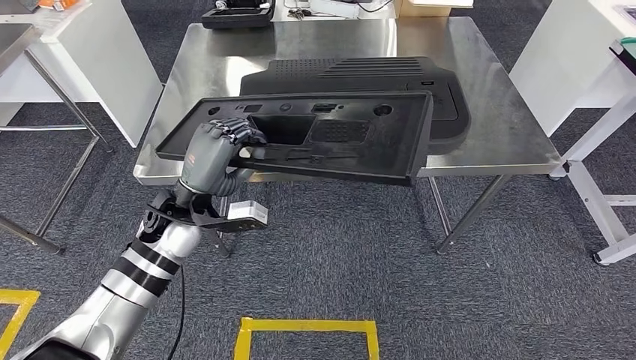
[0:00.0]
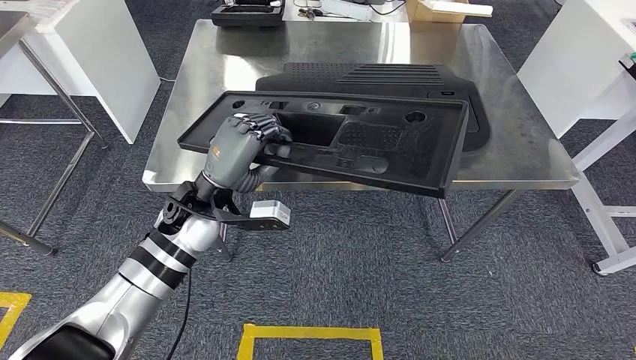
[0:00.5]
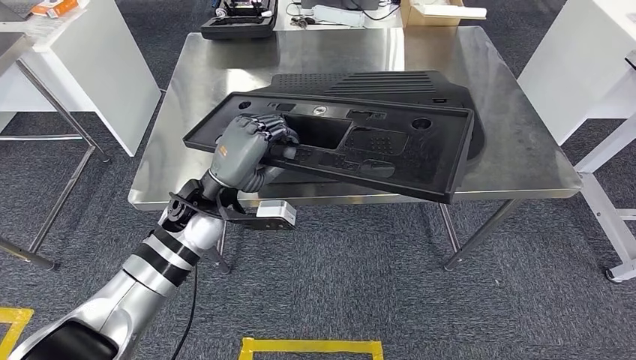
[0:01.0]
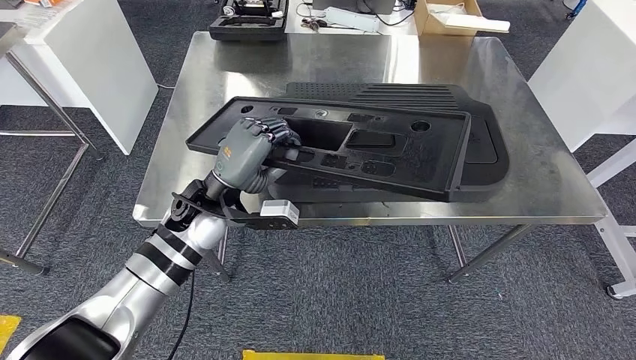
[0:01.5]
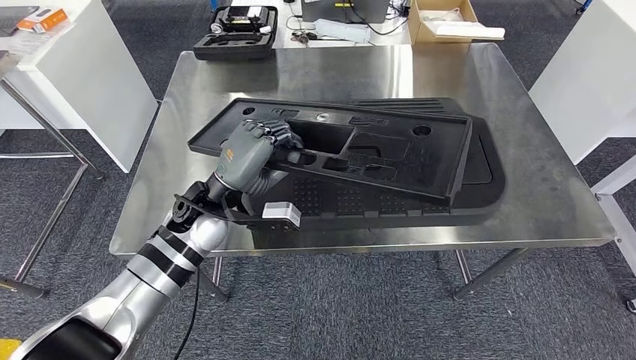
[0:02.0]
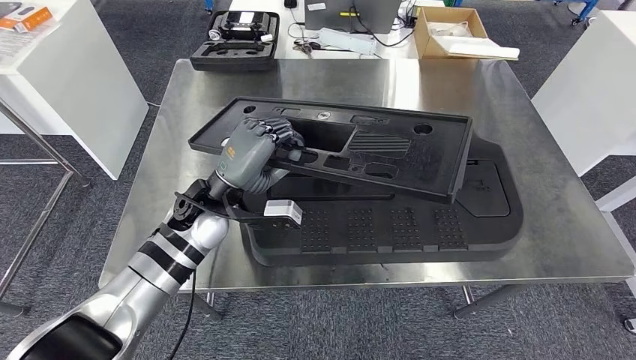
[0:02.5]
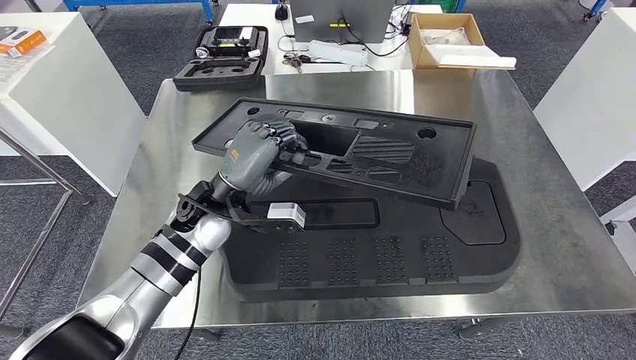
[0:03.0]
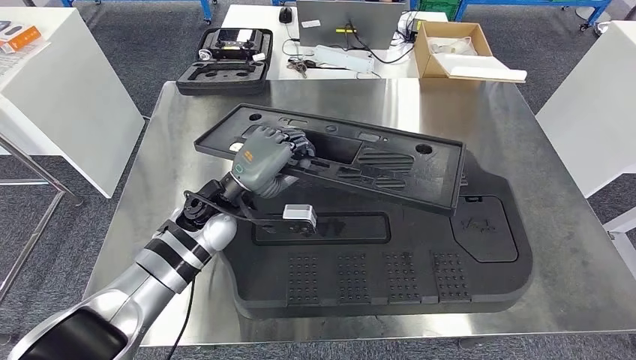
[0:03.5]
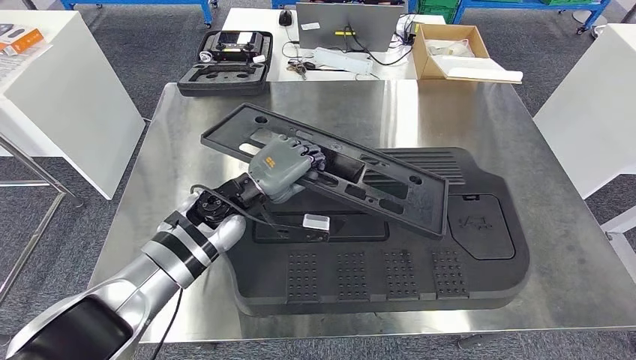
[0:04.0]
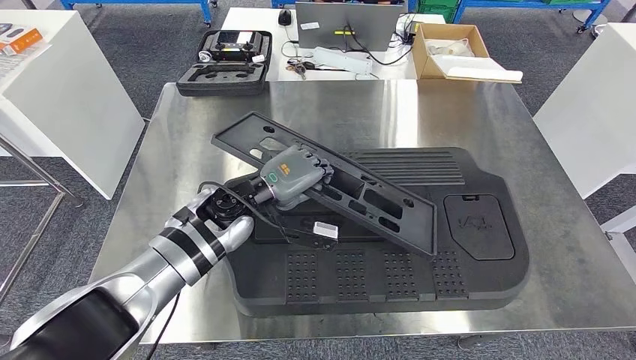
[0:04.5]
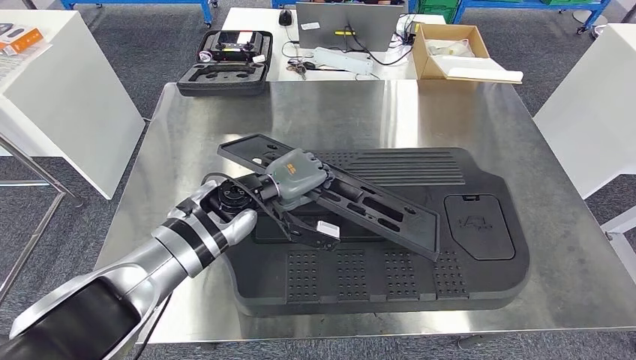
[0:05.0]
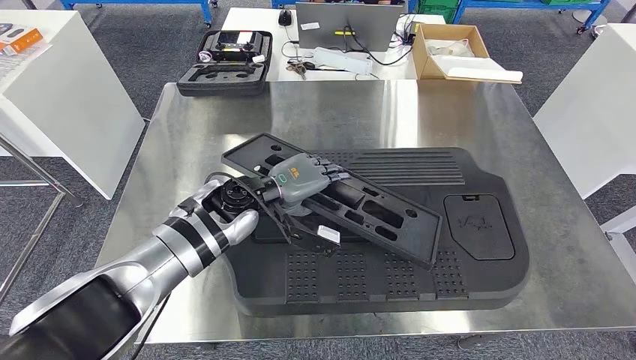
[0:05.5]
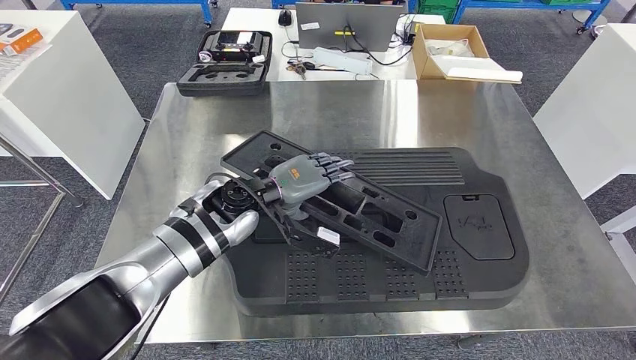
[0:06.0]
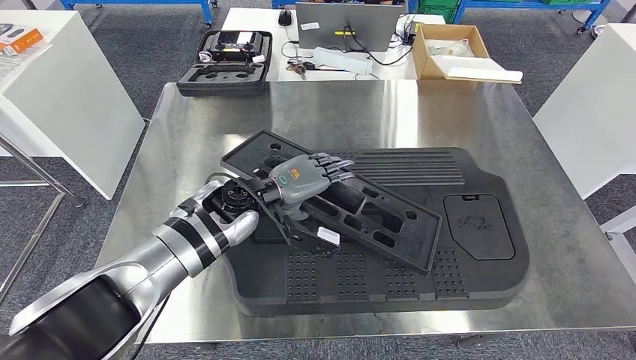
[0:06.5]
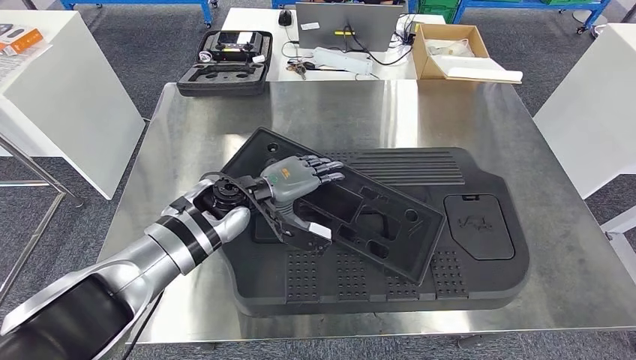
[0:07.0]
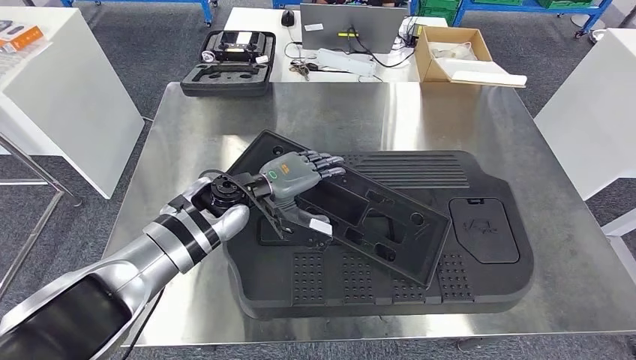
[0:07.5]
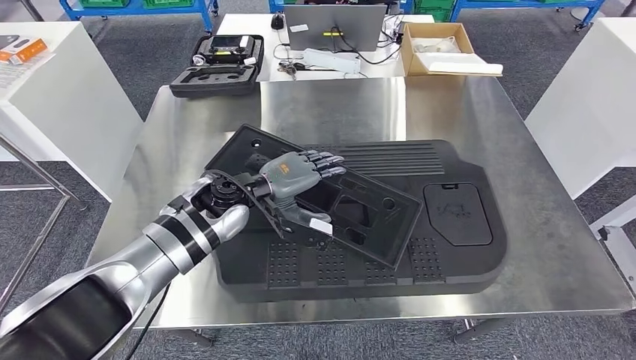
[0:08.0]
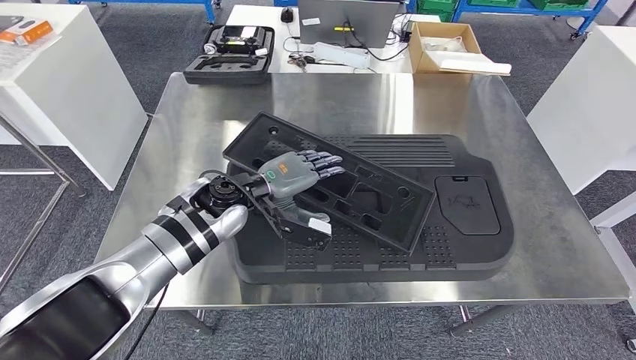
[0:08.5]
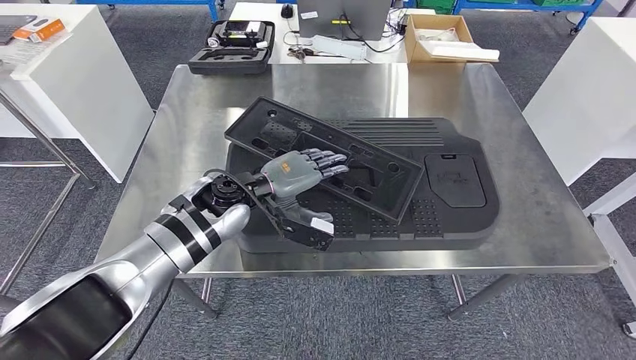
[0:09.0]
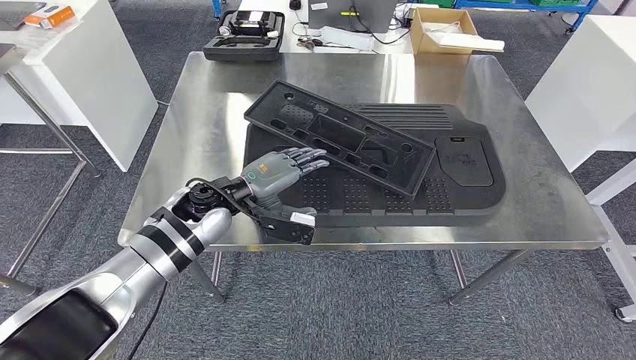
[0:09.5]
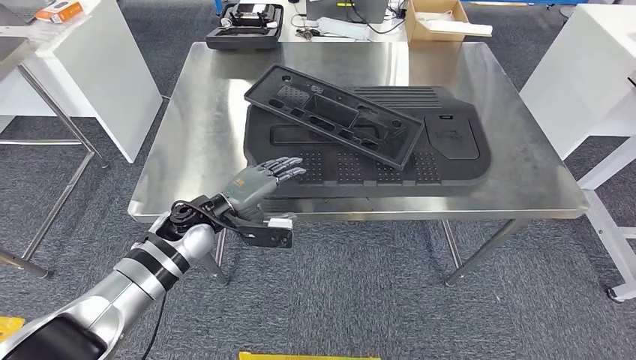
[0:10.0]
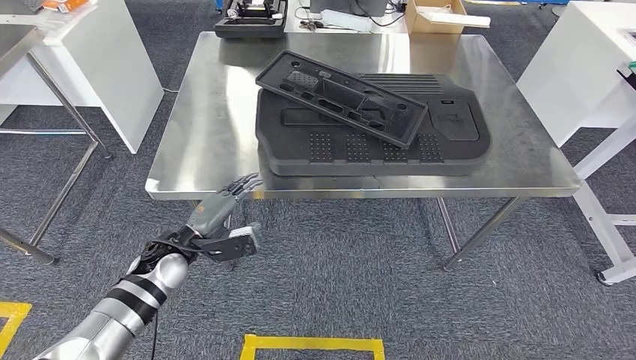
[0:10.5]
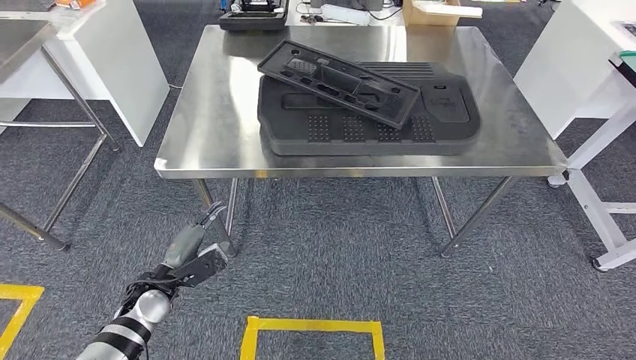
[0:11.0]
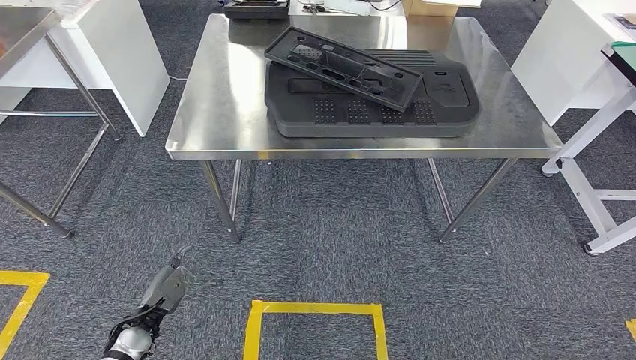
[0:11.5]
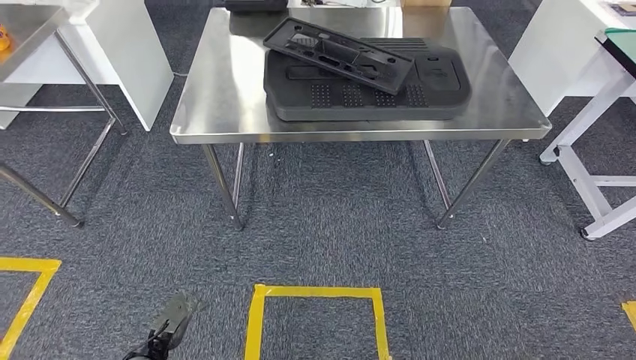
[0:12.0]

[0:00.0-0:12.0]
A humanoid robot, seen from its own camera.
Step, 0:00.0 to 0:08.0: Insert the large material into the corresponding hole on the workbench.

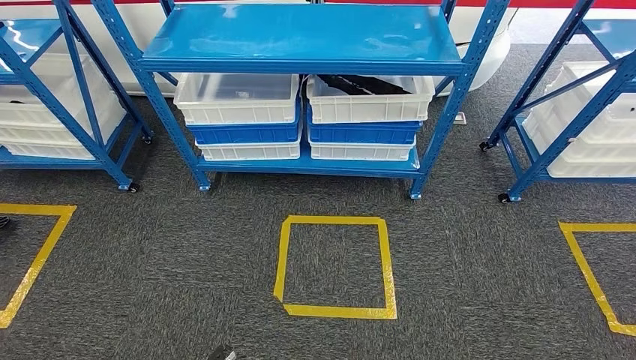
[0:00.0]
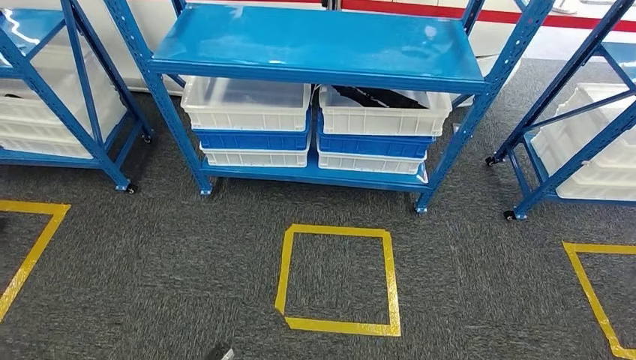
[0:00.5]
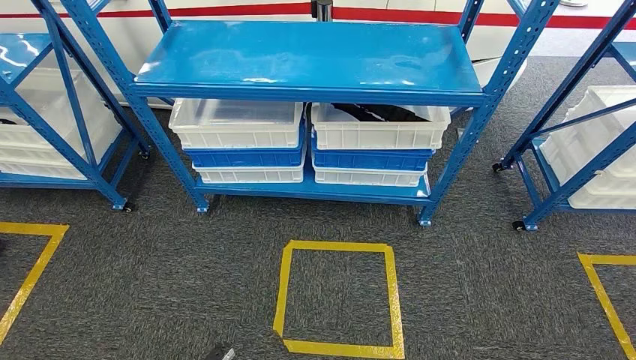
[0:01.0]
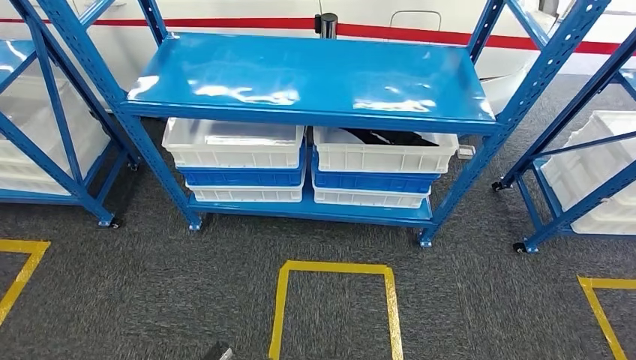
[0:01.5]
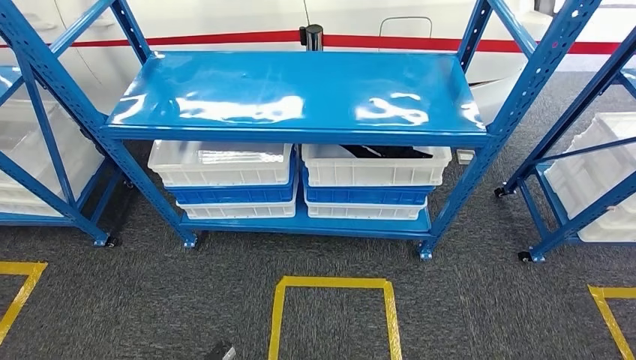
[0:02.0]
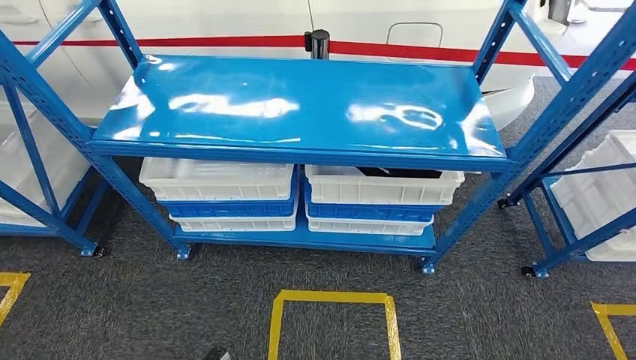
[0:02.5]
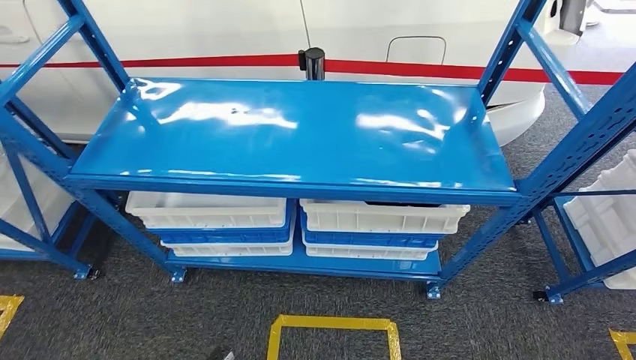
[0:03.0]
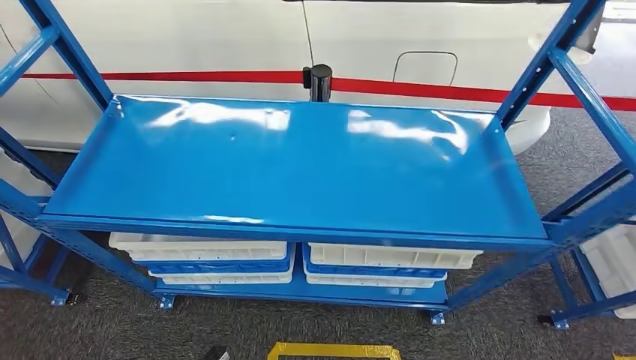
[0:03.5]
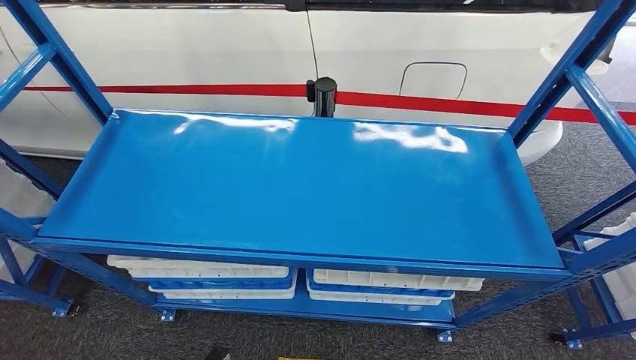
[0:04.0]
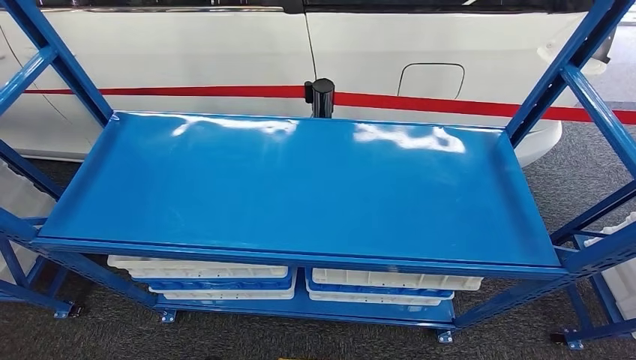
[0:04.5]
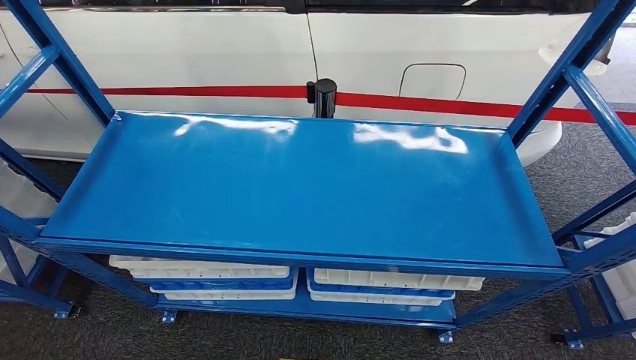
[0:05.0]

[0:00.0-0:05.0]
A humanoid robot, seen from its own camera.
Step, 0:00.0 to 0:05.0: Move to the initial position of the shelf.
